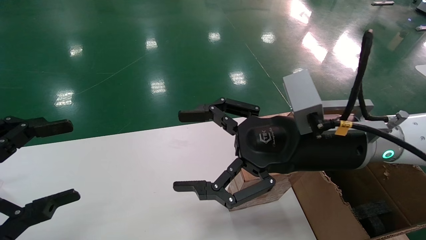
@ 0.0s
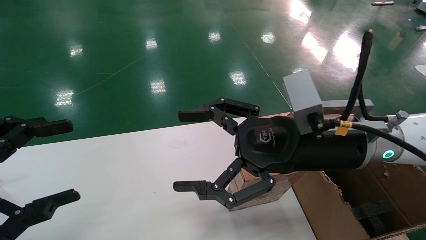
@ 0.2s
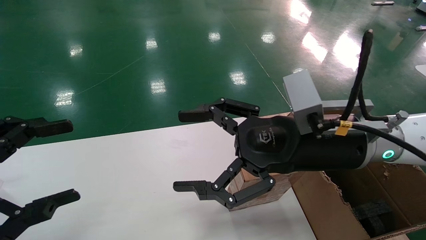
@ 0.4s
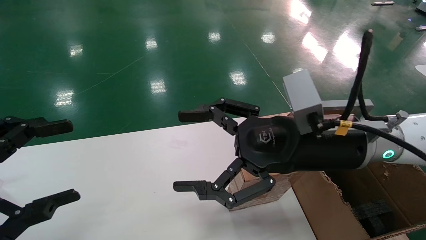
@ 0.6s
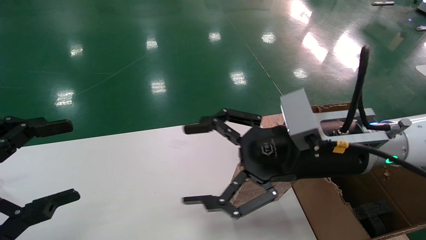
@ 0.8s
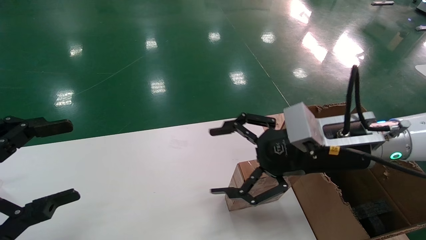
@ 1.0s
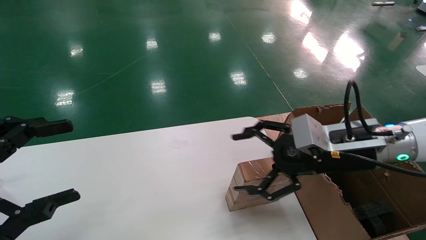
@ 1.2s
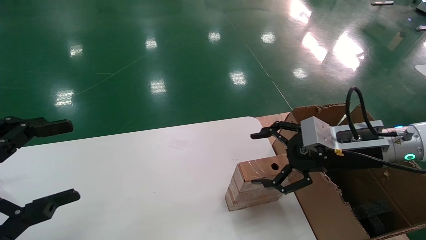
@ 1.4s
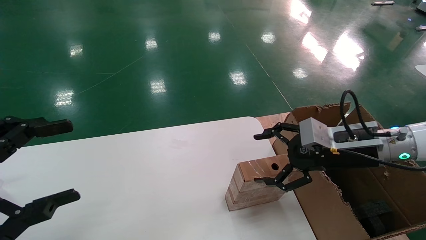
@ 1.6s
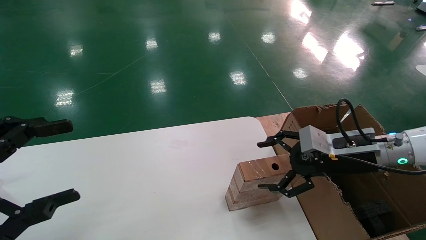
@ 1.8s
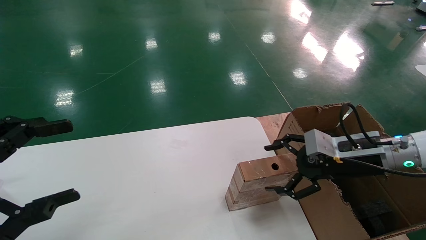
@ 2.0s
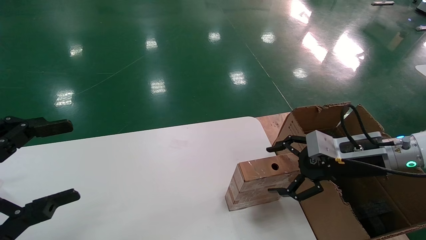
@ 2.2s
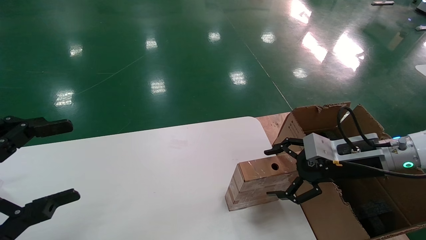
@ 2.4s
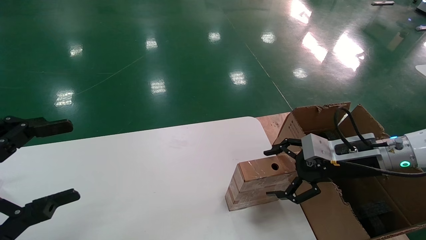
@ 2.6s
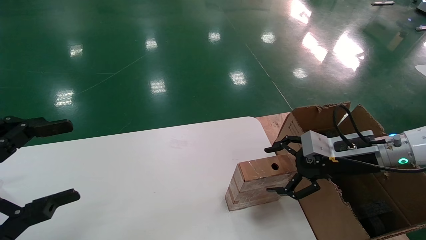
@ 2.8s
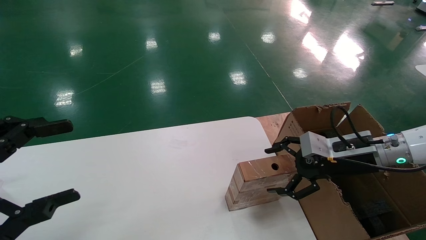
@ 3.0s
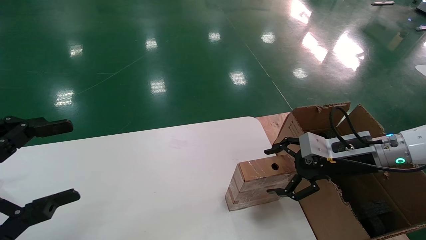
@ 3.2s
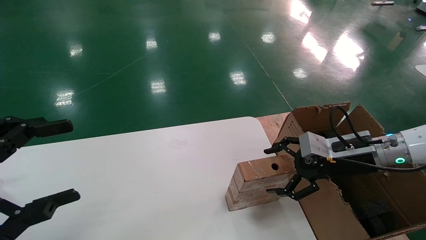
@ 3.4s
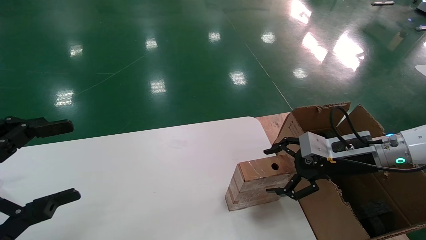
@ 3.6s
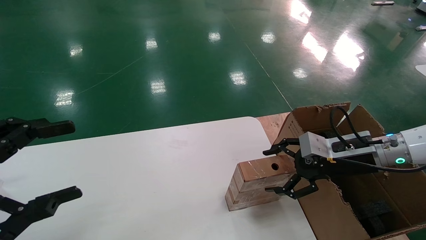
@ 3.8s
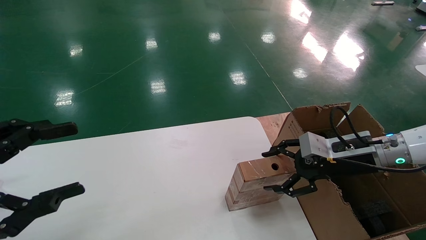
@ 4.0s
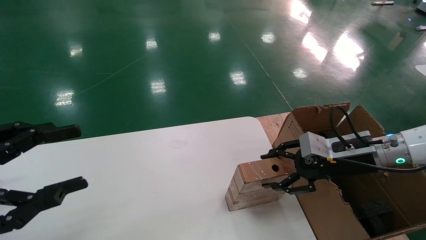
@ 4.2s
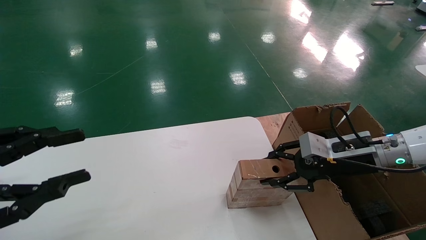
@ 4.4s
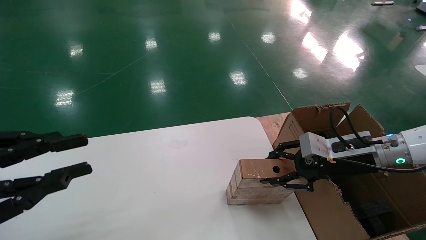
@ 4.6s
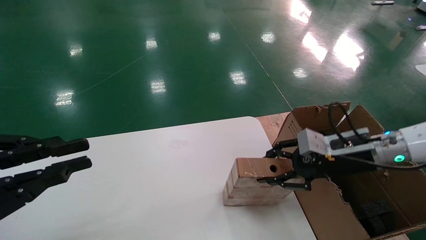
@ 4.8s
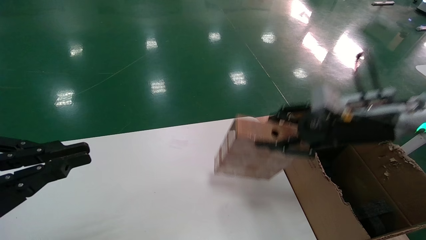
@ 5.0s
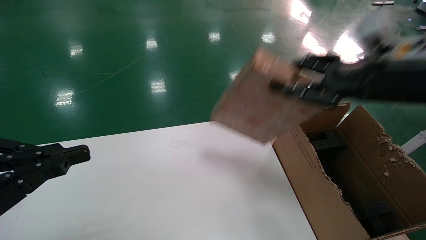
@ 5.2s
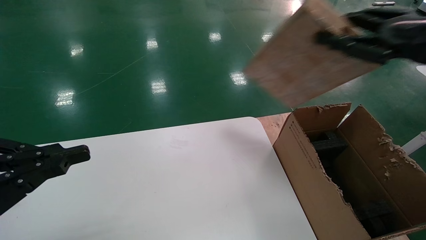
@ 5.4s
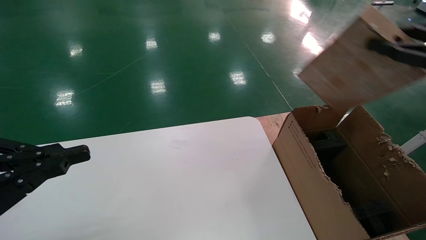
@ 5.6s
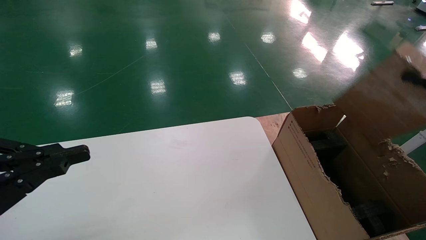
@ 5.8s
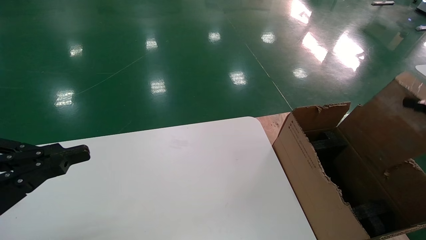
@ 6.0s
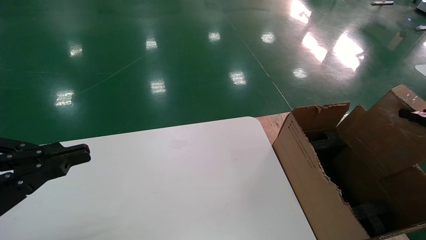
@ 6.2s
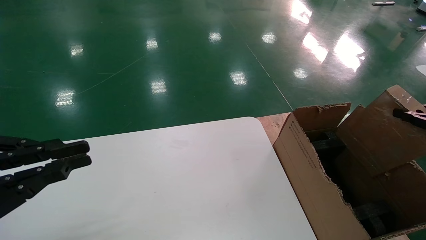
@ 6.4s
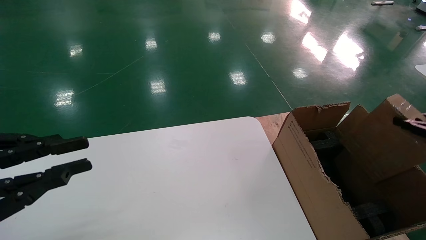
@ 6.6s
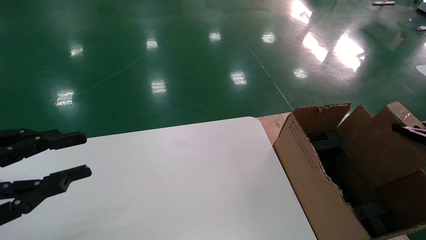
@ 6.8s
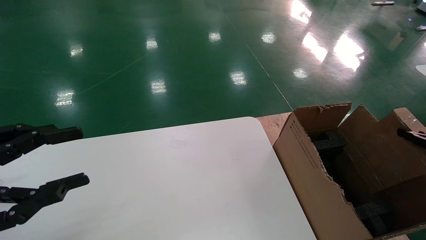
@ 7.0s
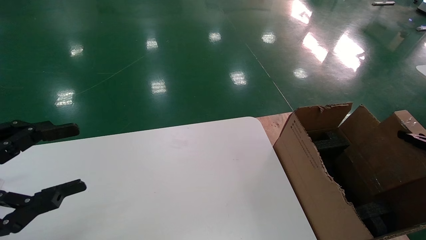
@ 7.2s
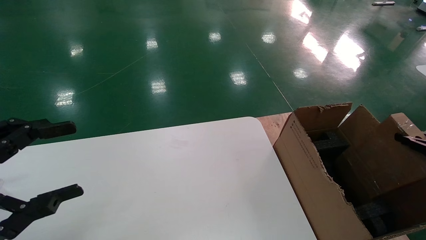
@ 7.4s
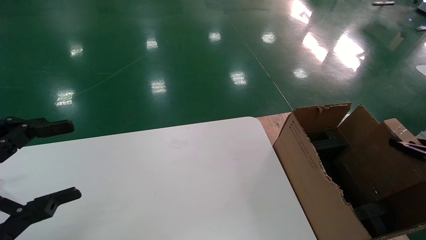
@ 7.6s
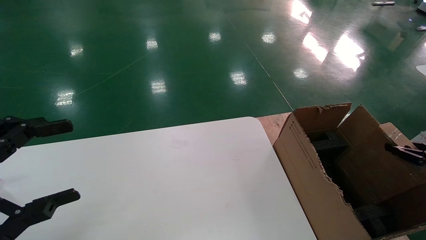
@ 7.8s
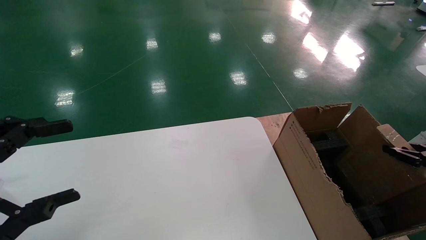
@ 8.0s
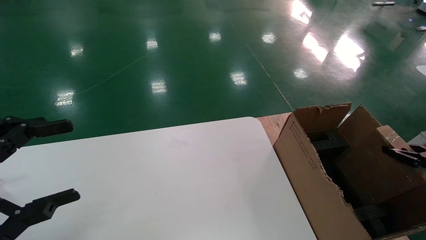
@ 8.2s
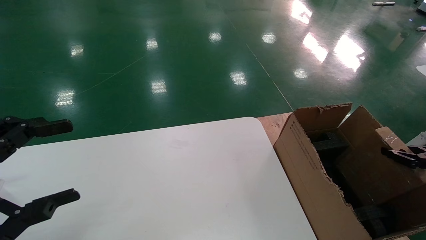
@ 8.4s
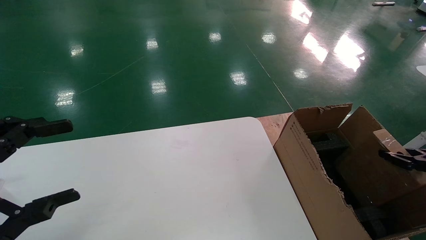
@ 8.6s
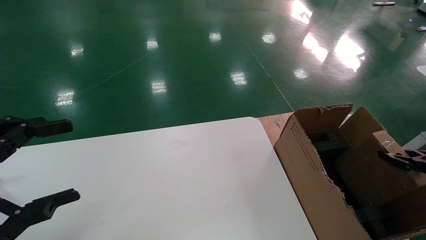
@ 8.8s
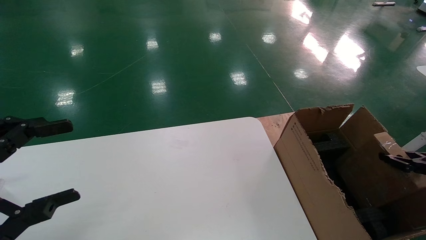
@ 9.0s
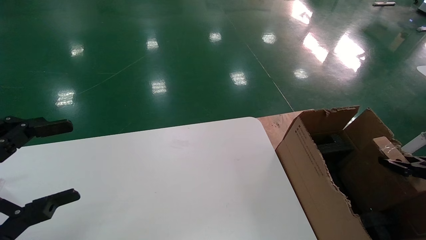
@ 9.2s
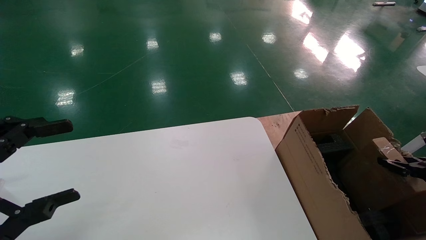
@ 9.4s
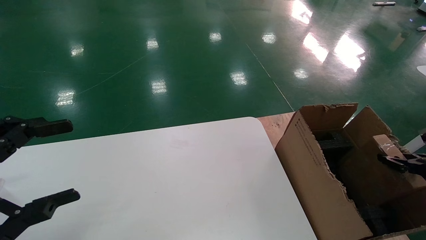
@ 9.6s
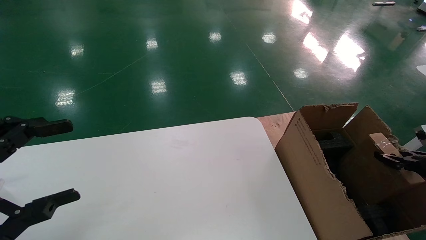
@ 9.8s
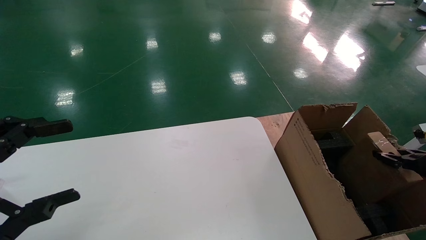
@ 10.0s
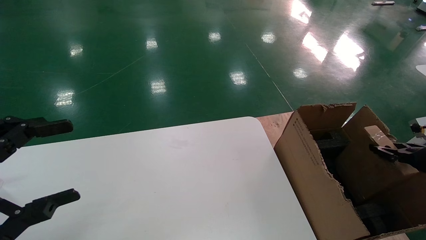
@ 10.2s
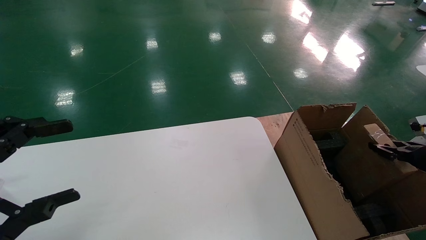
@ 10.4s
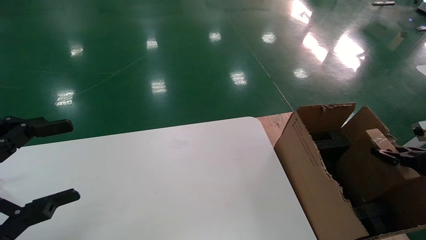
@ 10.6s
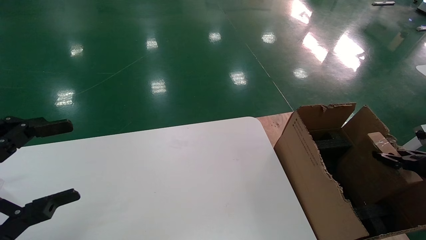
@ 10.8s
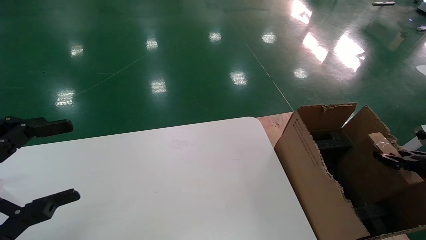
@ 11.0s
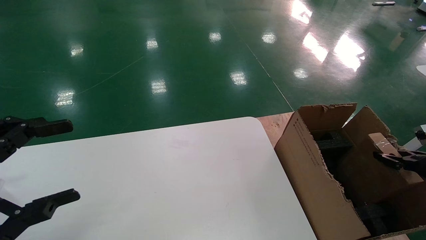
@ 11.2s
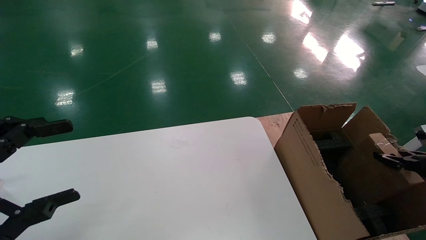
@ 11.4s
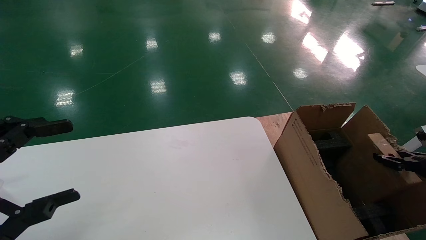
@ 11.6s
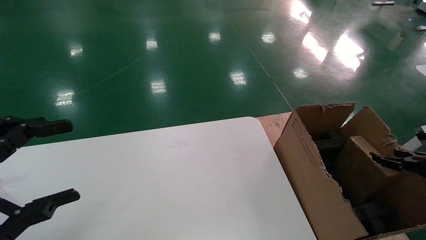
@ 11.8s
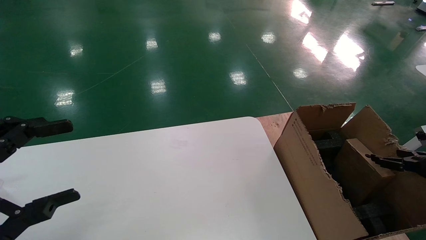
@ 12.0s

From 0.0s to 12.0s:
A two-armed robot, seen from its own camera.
Task of the whole recording: put the box on the table into the big box.
Step, from 1.2s to 4.6s: Pick up the mouse and the power cord paper box.
From 0.0s to 1.6s: The right gripper moves to the right, downward and forward, some 15 cm.
From 1.6s to 3.0s: The grippers make only small movements.
From 3.0s to 4.4s: The left gripper closes up; the right gripper closes its fingers.
From 4.4s to 6.0s: The left gripper closes up, while the right gripper is displaced to the right, backward and upward by about 25 cm.
From 6.0s to 7.6s: The right gripper shifts about 15 cm downward. The left gripper opens.
From 7.6s to 9.0s: The grippers move only a little.
From 9.0s to 10.4s: The grippers move only a little.
From 10.4s to 12.0s: The right gripper opens its fingers.

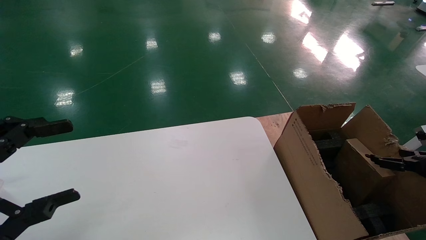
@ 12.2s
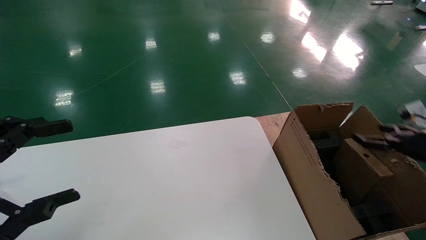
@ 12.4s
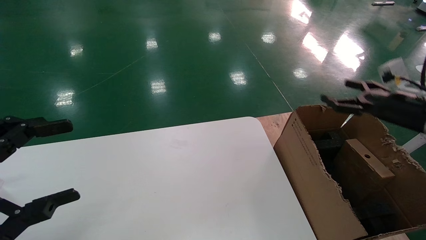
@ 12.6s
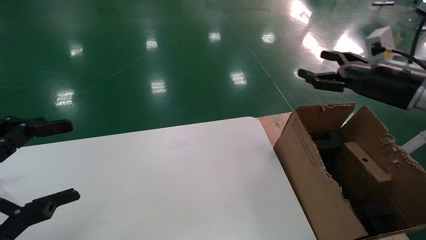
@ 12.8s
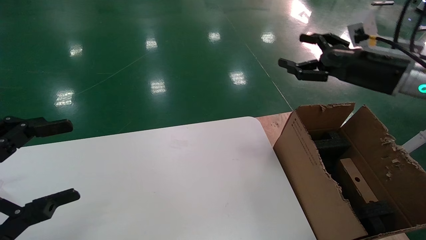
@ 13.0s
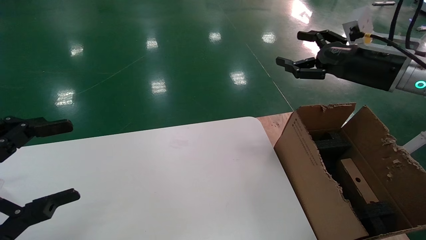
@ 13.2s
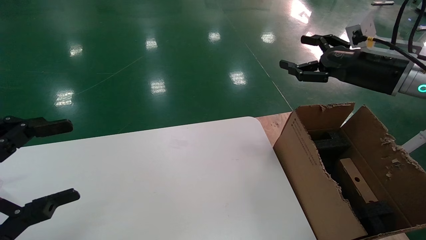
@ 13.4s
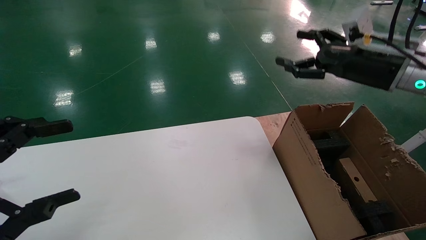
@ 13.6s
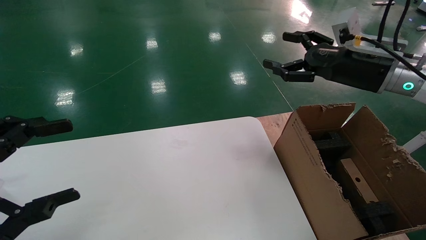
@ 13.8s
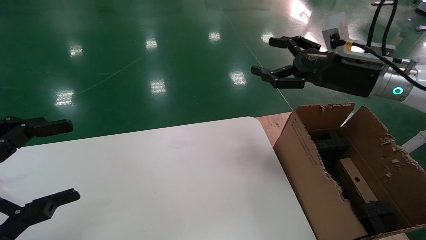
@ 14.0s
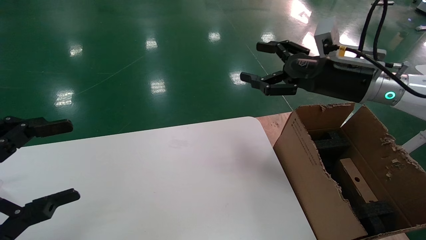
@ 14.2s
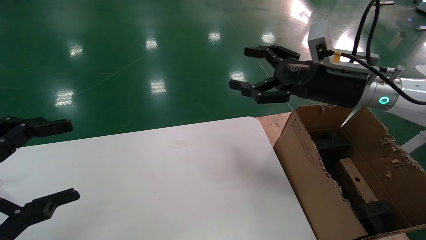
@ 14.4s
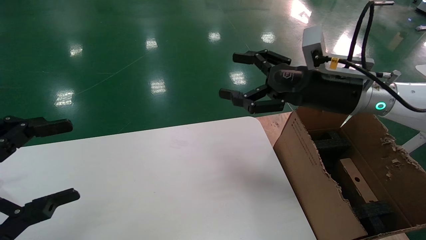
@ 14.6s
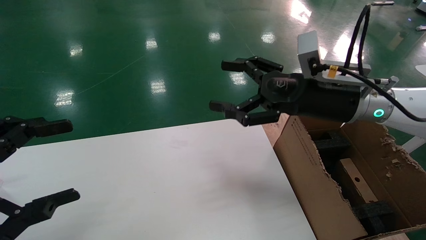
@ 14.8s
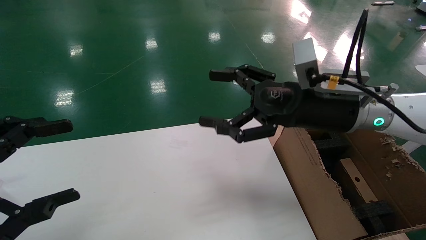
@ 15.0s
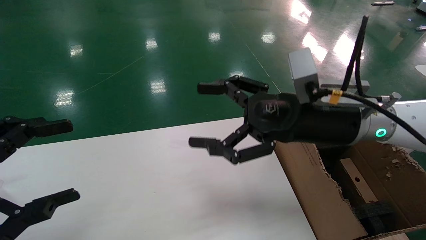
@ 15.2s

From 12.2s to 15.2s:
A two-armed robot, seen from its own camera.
Task of the whole recording: put the box on the table into the big box.
From 12.2s to 13.8s: The right gripper heads to the left, upward and forward, covering about 30 cm.
From 13.8s to 15.2s: The right gripper shifts roughly 15 cm to the left and backward.

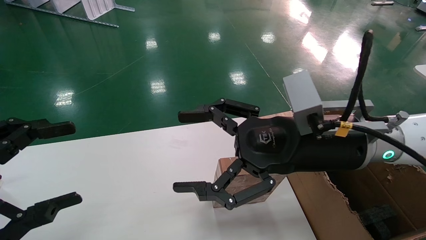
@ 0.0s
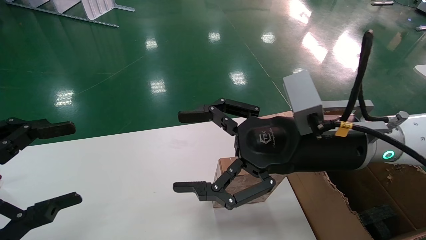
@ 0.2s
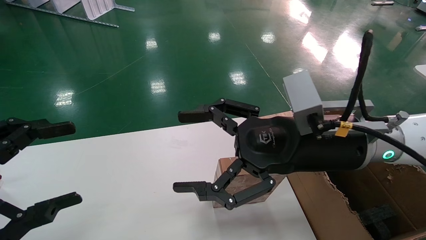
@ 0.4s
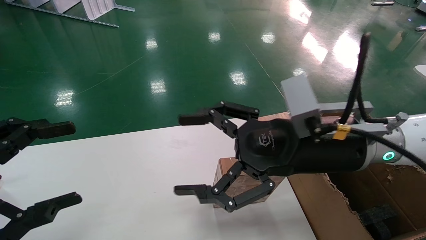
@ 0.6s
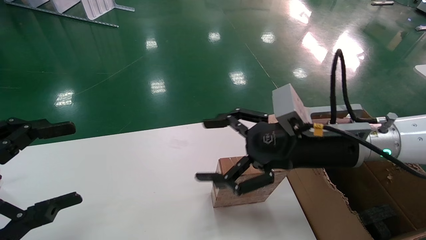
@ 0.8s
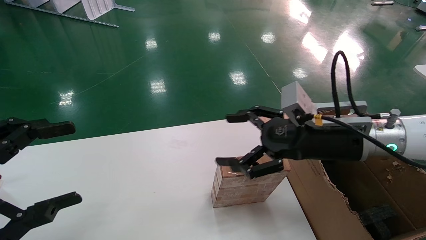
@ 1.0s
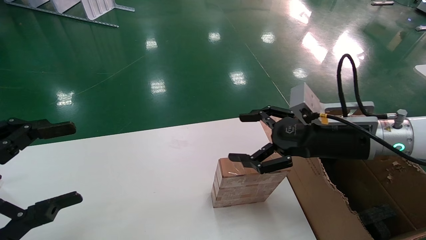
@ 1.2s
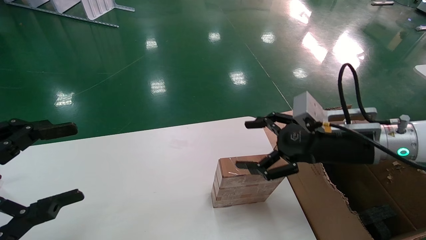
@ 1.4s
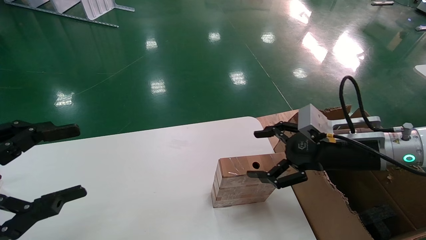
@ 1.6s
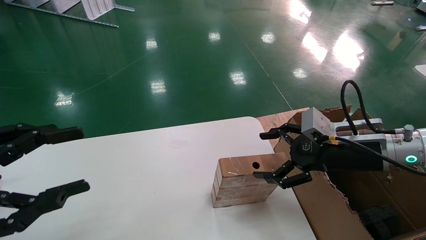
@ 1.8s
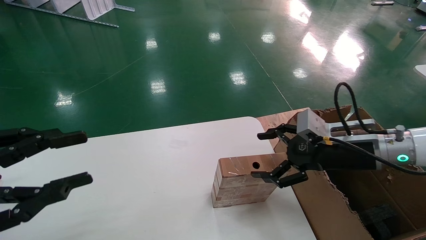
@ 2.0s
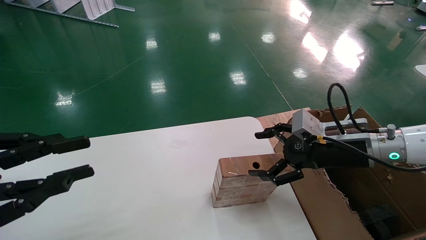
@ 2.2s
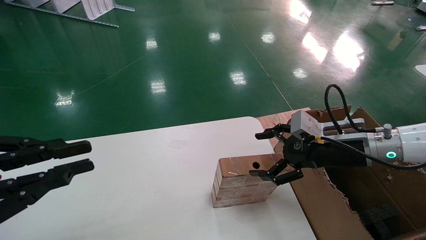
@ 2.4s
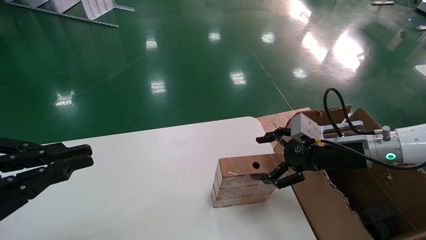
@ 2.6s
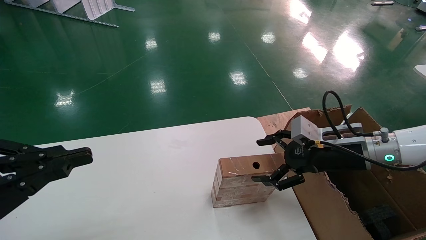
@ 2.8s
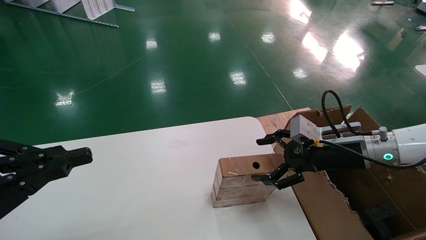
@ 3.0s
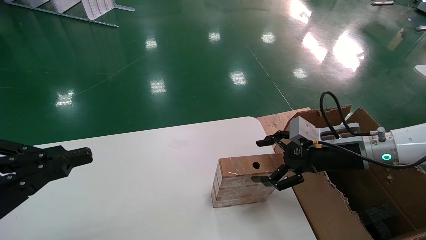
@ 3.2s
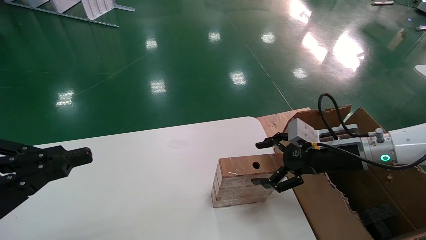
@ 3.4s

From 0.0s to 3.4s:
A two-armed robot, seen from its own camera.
Task of the whole recording: put the box on the table into the big box.
From 0.0s to 1.6s: The right gripper shifts roughly 10 cm to the right.
From 1.6s to 3.4s: The left gripper closes its fingers. The right gripper changes place by some 5 cm.
